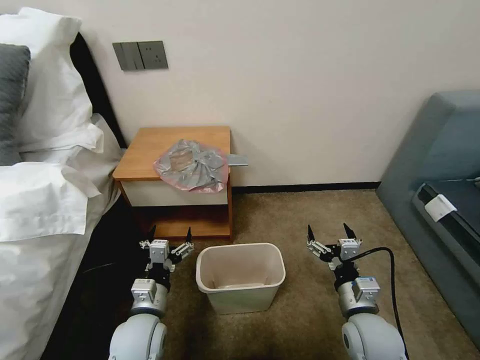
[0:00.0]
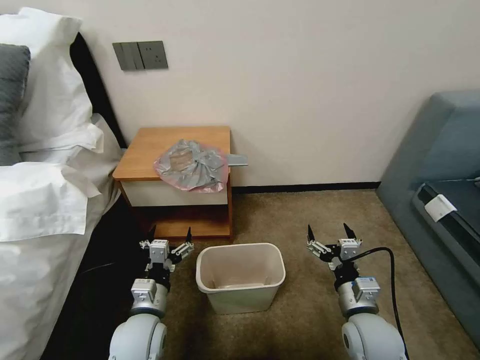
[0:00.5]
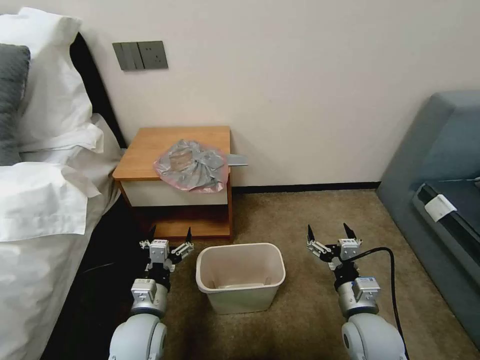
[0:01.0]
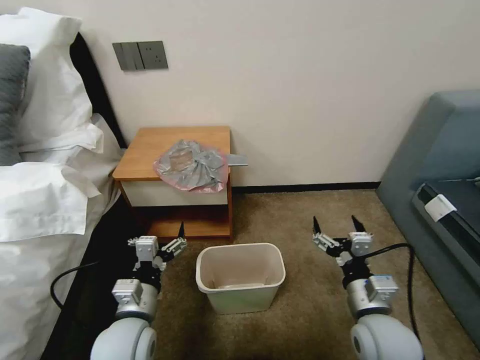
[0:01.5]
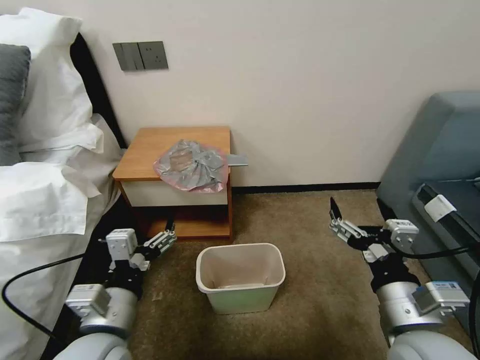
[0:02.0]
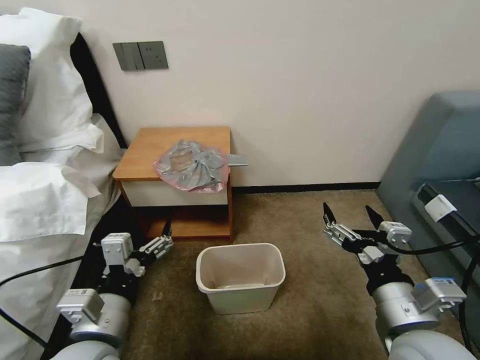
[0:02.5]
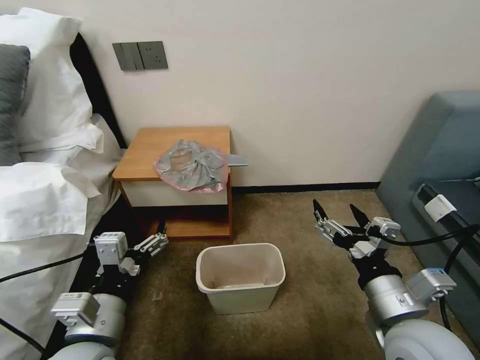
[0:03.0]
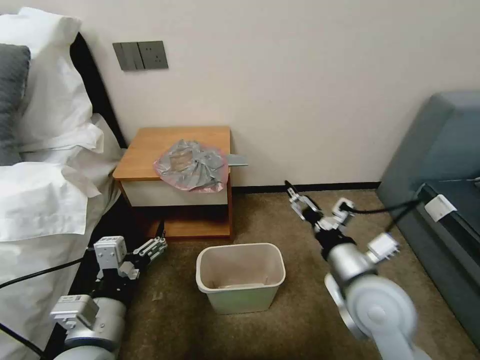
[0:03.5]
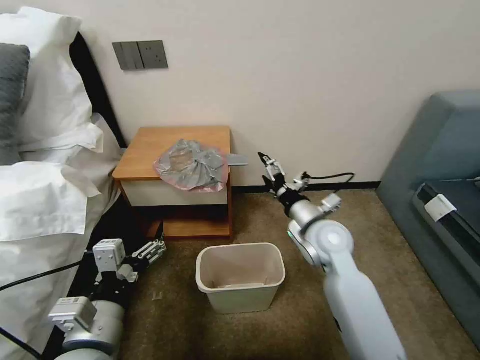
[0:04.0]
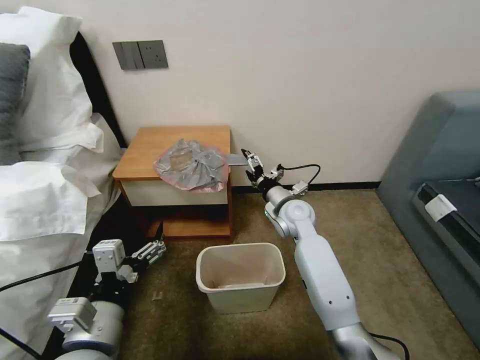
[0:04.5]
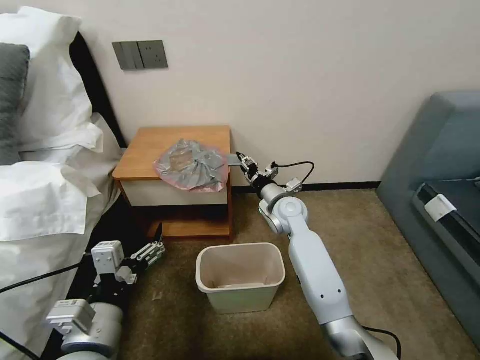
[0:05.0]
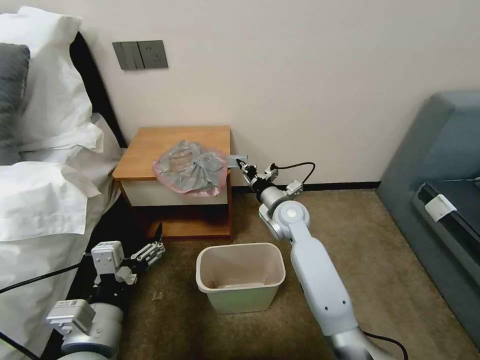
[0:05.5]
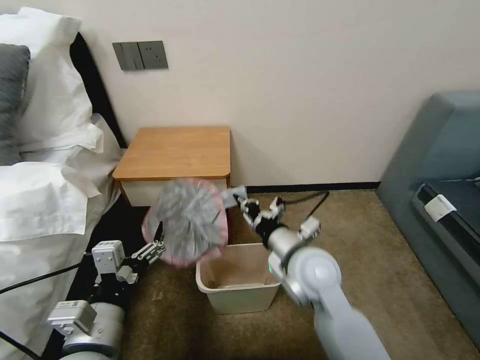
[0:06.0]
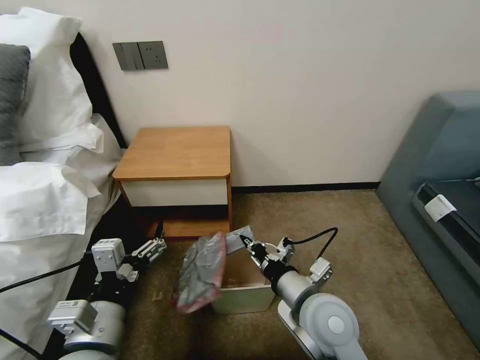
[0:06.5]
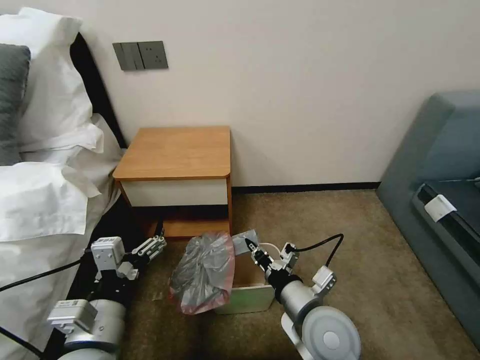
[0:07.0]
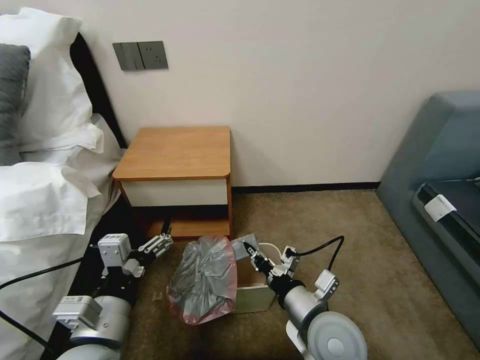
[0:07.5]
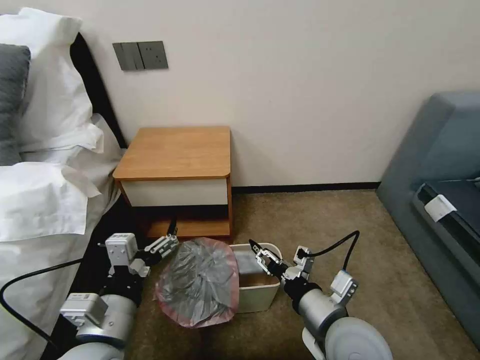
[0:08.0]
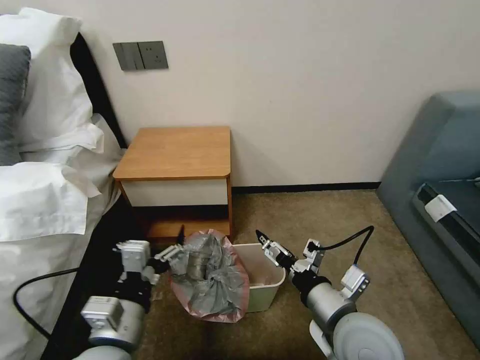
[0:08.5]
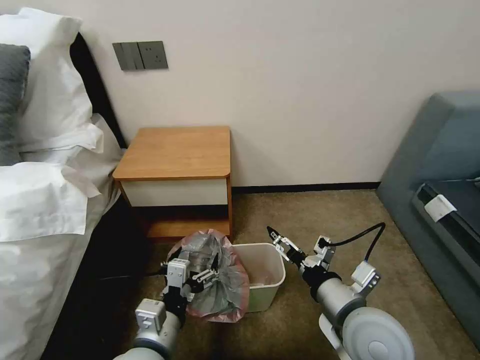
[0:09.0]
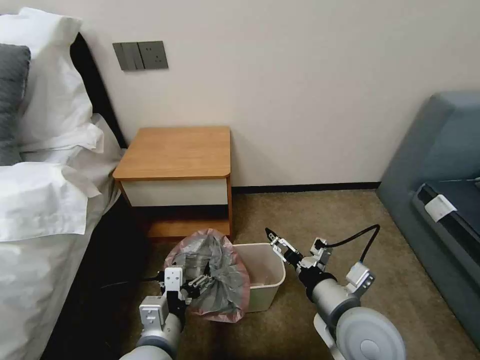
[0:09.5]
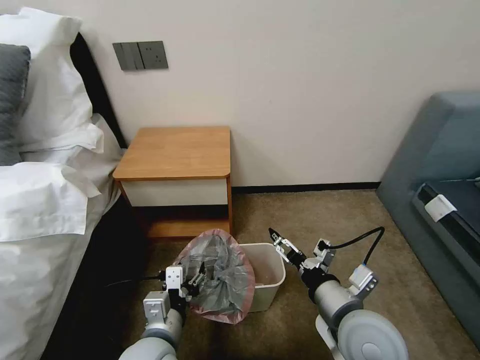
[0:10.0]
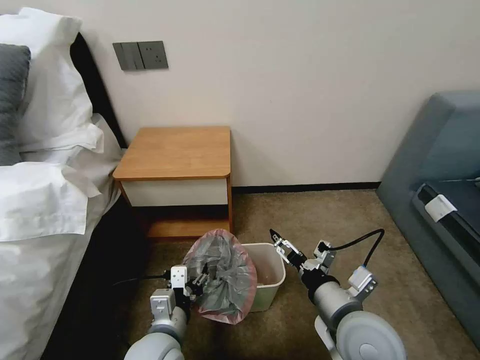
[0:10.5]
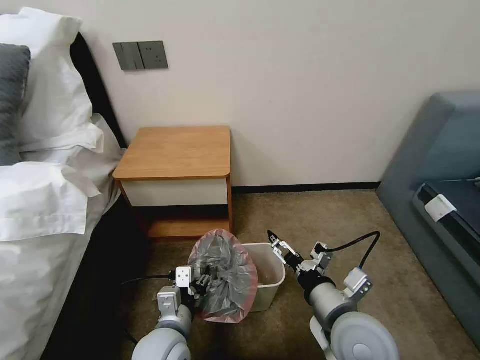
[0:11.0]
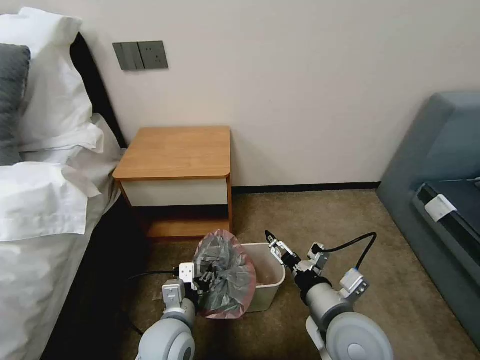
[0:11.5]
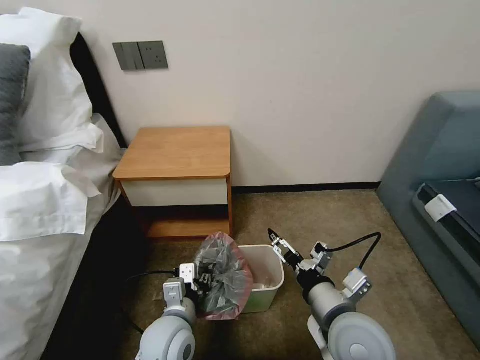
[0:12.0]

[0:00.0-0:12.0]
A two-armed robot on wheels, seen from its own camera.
Task of the whole recording: Pick up the garbage bag from the table and place it over the trash can.
0:02.0 to 0:04.0: The right gripper heads forward, covering about 20 cm.
0:04.0 to 0:06.0: The right gripper goes about 10 cm backward and to the left, and closes its fingers.
0:06.0 to 0:08.0: The right gripper shifts some 10 cm backward, and opens its fingers.
0:08.0 to 0:10.0: The left gripper heads downward and to the right, covering roughly 10 cm.
0:10.0 to 0:12.0: The left gripper ends up approximately 5 cm from where it was.

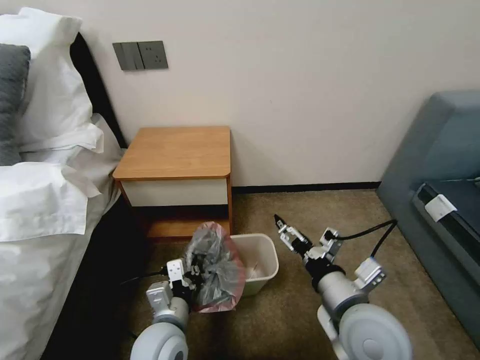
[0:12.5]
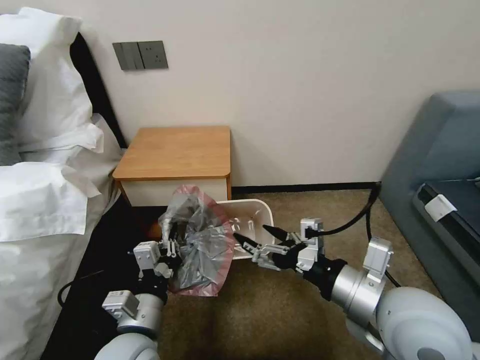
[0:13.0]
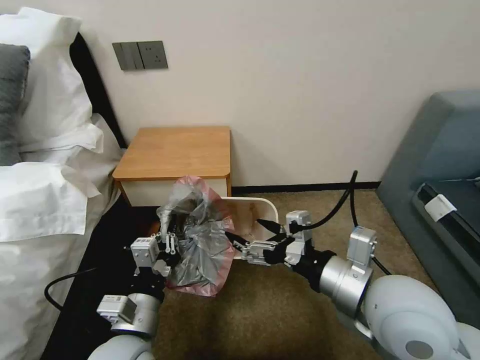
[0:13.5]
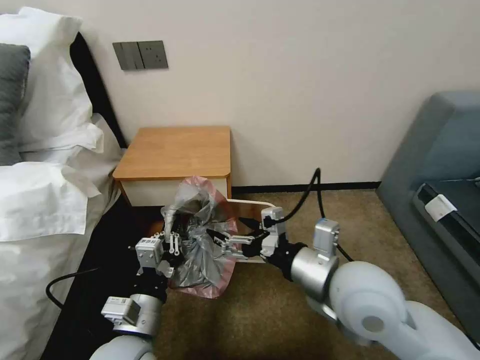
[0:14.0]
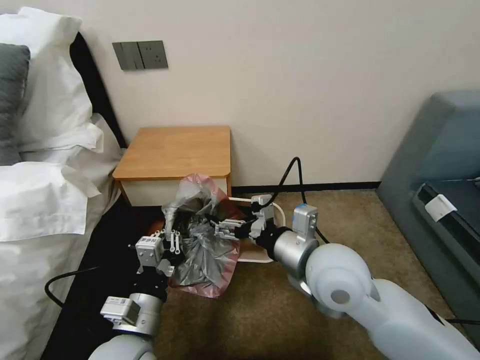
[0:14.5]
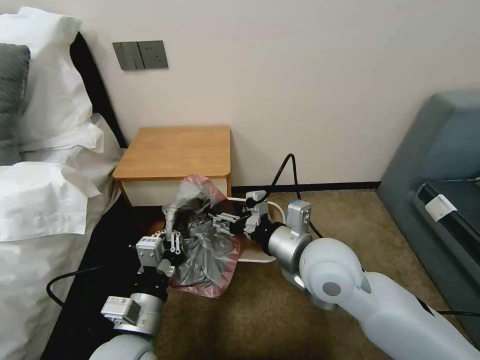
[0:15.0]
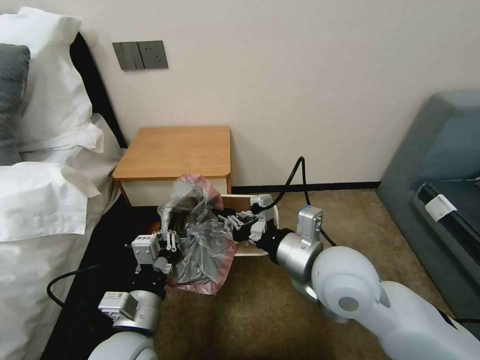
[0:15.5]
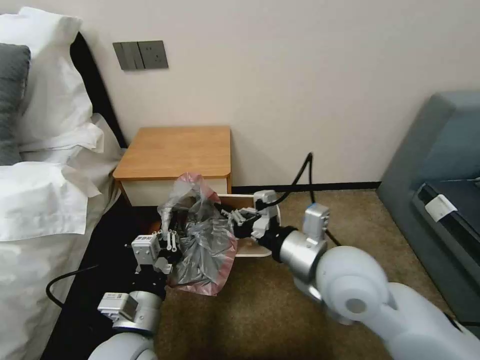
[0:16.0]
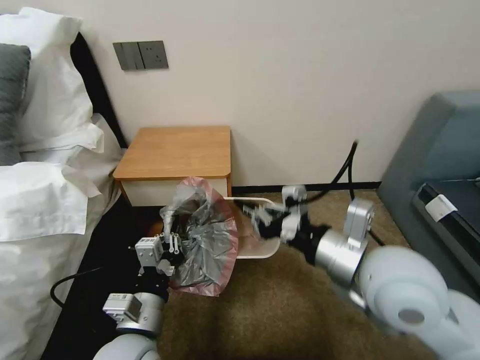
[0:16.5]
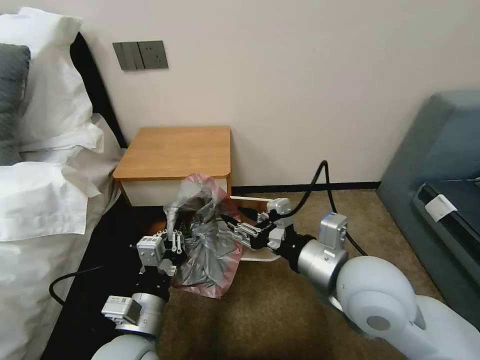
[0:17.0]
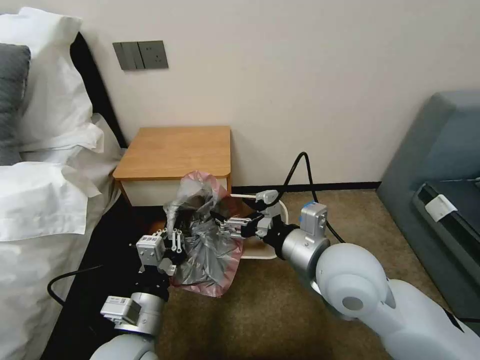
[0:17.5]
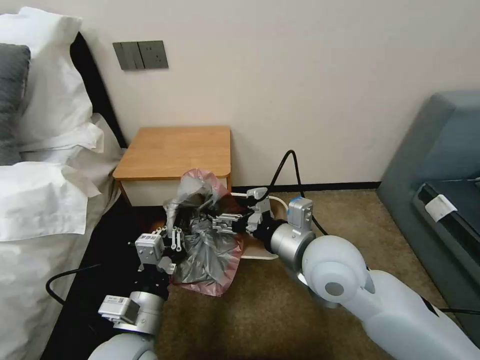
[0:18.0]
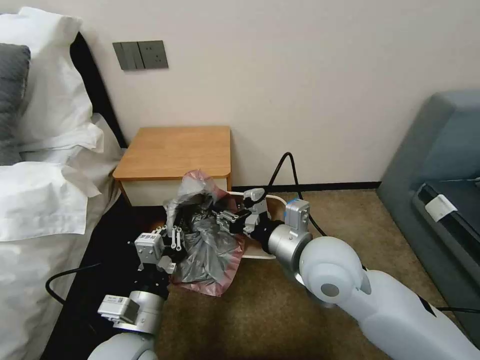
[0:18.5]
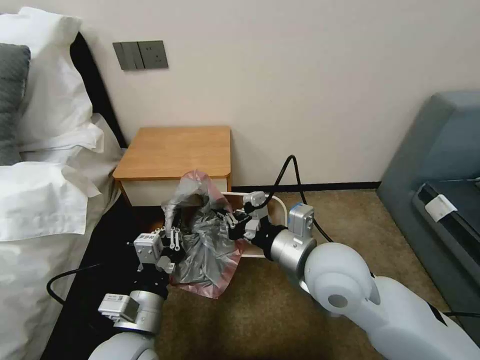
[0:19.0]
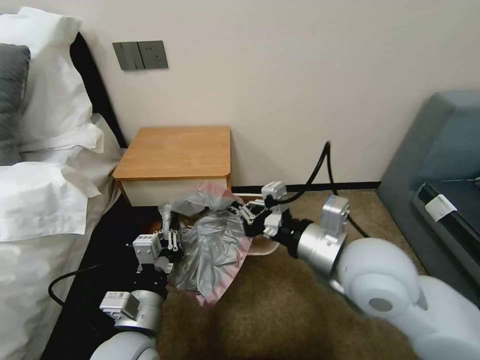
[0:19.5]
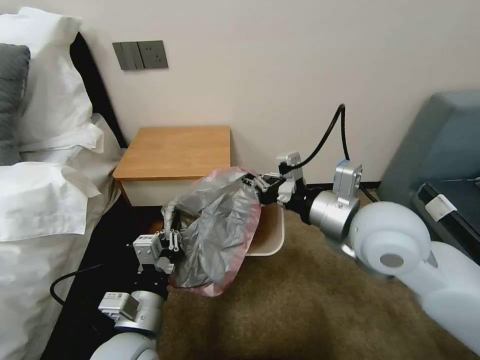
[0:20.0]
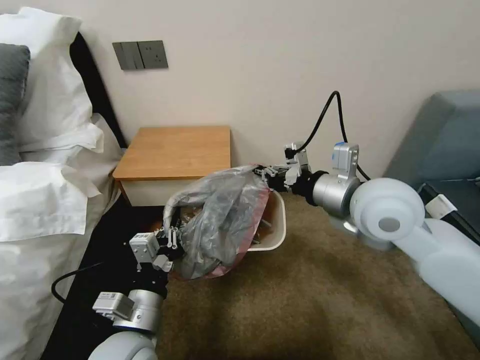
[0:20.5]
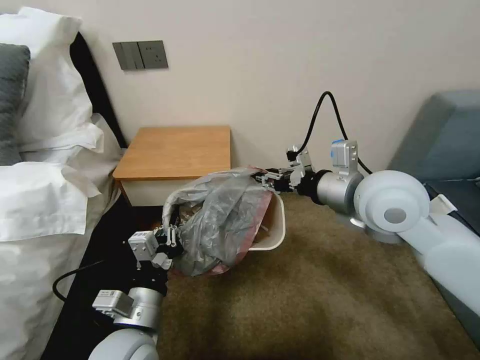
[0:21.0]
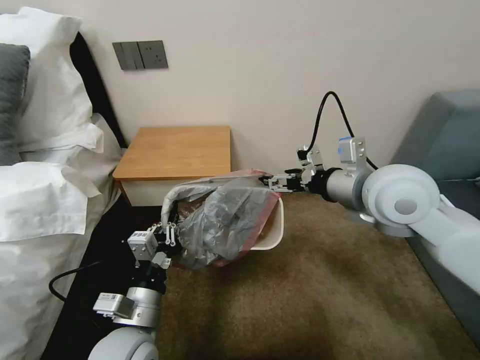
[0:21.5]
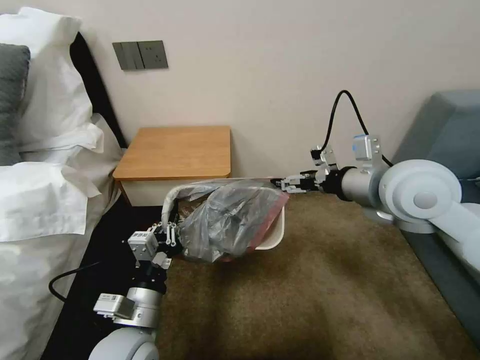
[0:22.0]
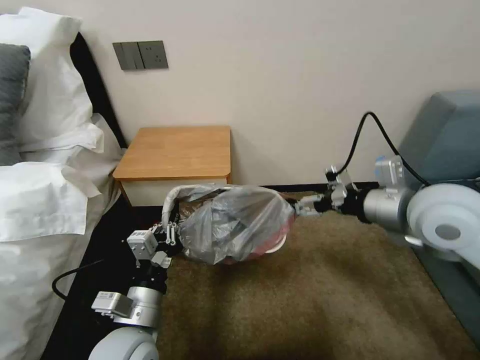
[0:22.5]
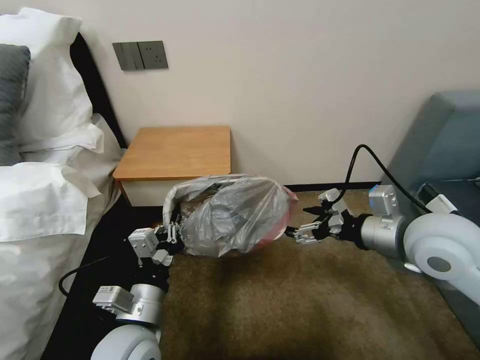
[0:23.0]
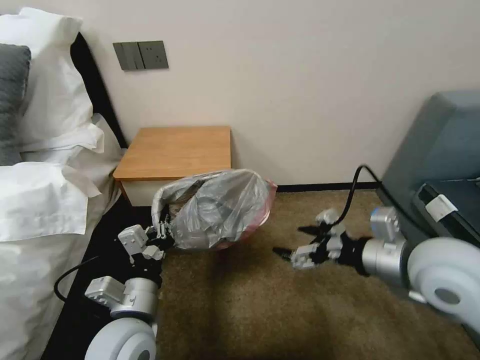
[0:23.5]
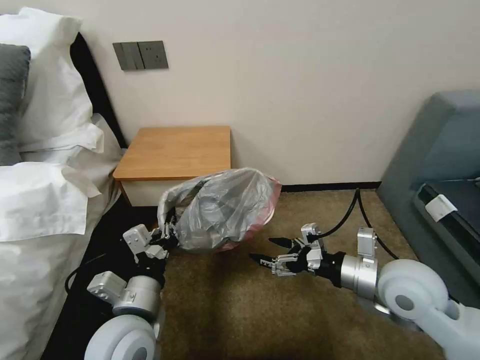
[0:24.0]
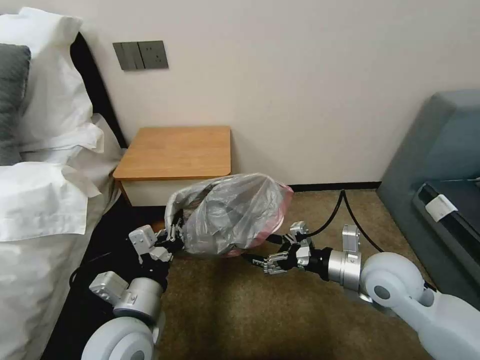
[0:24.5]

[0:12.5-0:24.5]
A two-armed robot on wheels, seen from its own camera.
Task of the whole recording: Pick up the garbage bag from the table and place it over the trash can.
0:12.5 to 0:14.5: The right gripper moves forward and upward, approximately 10 cm. The left gripper moves upward, some 5 cm.
0:14.5 to 0:16.5: The right gripper moves to the right, about 5 cm, and closes its fingers.
0:16.5 to 0:18.5: The right gripper heads to the left, covering about 5 cm, and opens up.
0:18.5 to 0:20.5: The right gripper moves upward, to the right and forward, about 15 cm, and closes up.
0:20.5 to 0:22.5: The right gripper moves to the right, approximately 10 cm, and opens up.
0:22.5 to 0:24.5: The right gripper travels downward by about 15 cm.

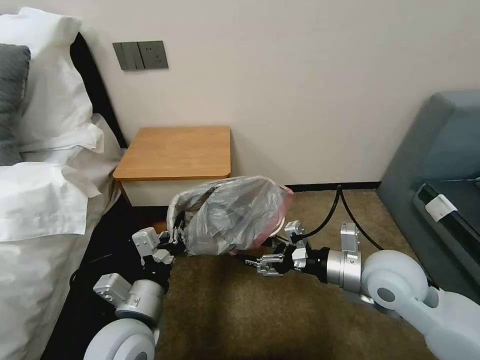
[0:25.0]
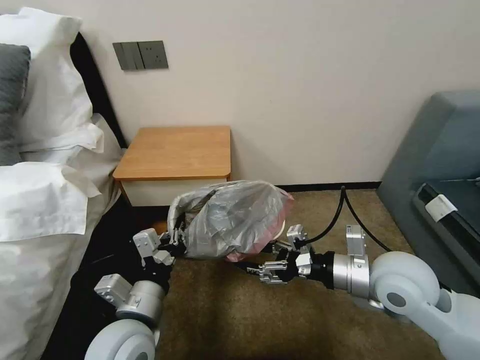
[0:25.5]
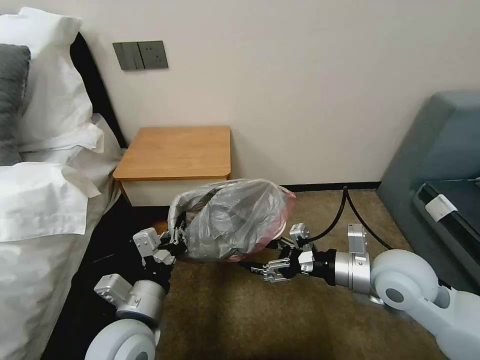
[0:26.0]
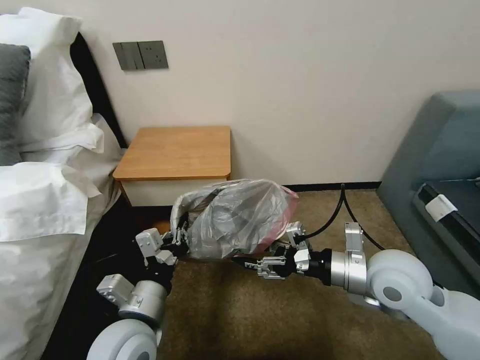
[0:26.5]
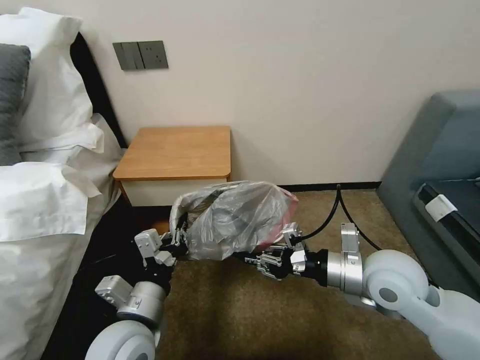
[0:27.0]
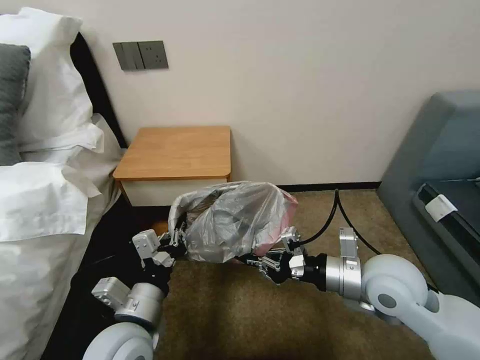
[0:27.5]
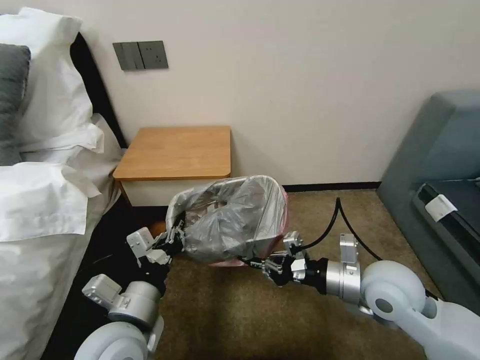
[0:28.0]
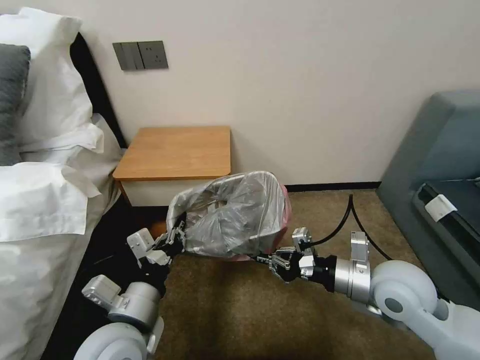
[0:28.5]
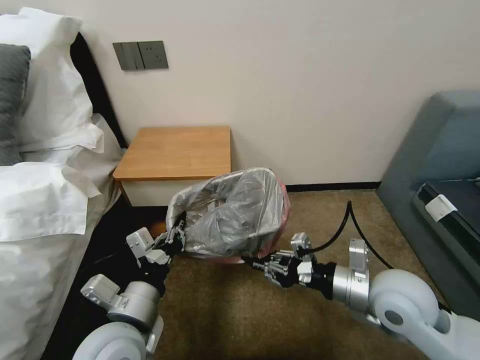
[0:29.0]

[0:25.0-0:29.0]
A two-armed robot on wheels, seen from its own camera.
Task of the whole recording: Pick up the garbage bag from the table and place it over the trash can.
0:25.0 to 0:27.0: The right gripper closes.
0:27.0 to 0:29.0: The grippers stay close to where they were, moving slightly.
